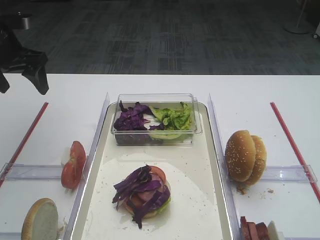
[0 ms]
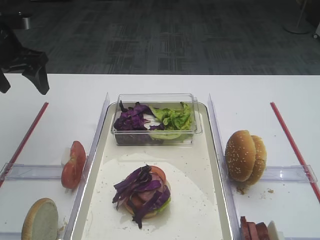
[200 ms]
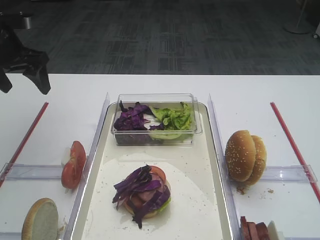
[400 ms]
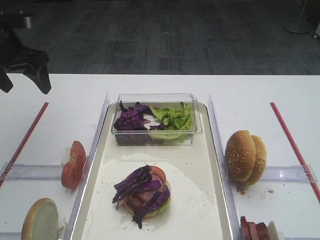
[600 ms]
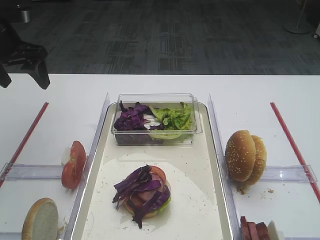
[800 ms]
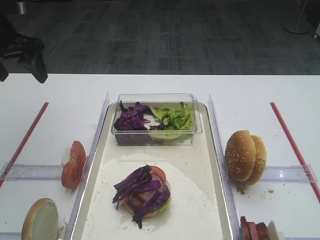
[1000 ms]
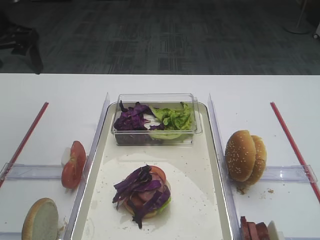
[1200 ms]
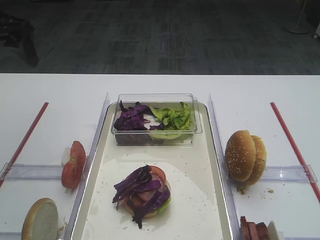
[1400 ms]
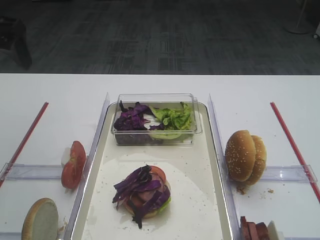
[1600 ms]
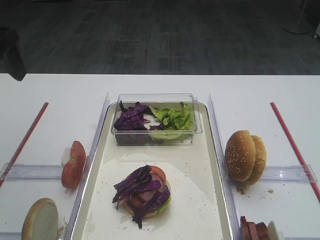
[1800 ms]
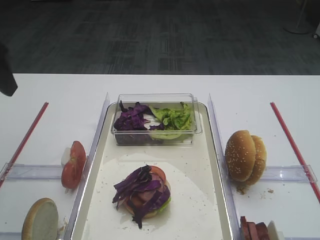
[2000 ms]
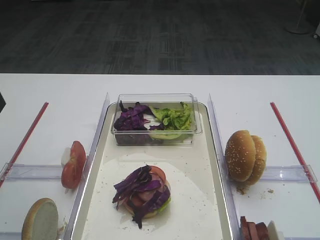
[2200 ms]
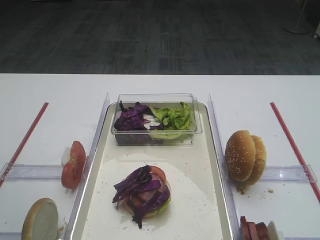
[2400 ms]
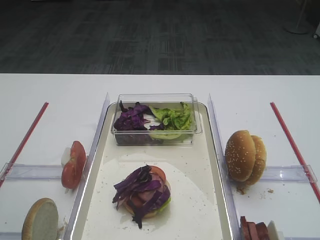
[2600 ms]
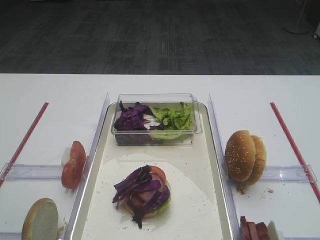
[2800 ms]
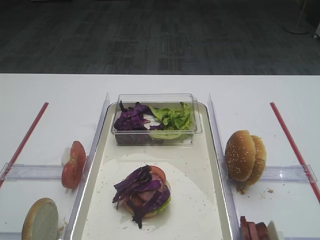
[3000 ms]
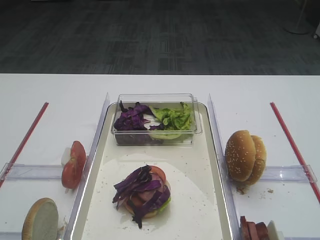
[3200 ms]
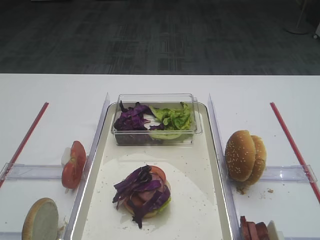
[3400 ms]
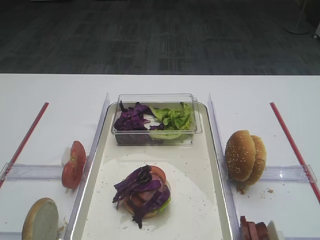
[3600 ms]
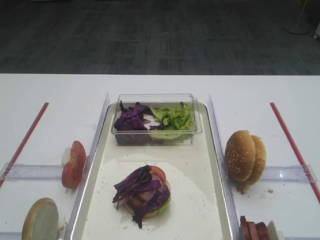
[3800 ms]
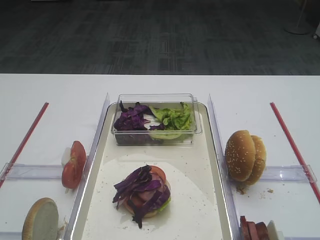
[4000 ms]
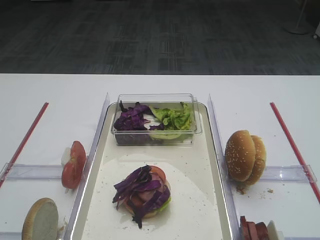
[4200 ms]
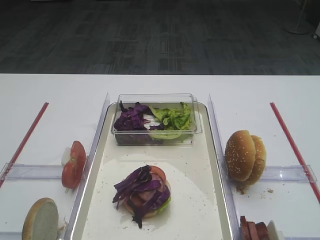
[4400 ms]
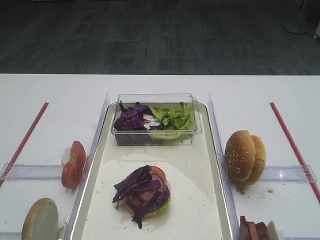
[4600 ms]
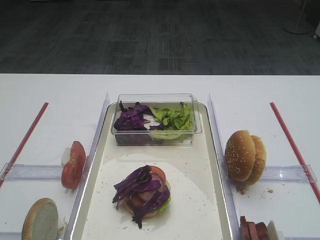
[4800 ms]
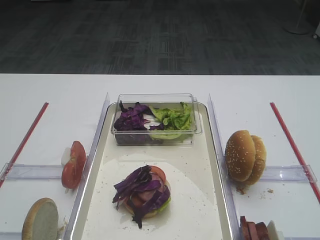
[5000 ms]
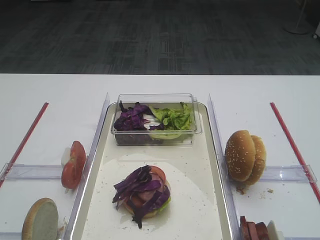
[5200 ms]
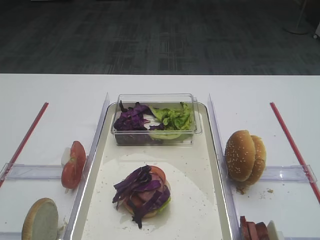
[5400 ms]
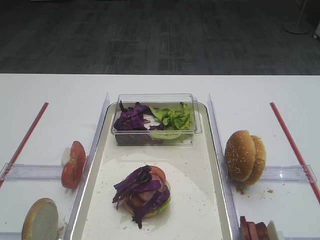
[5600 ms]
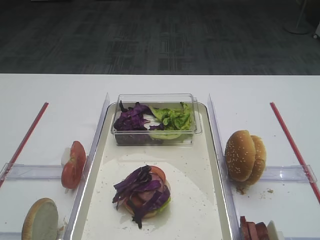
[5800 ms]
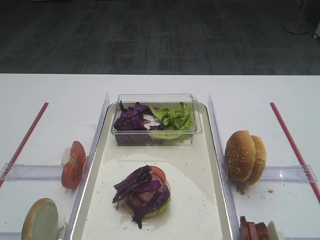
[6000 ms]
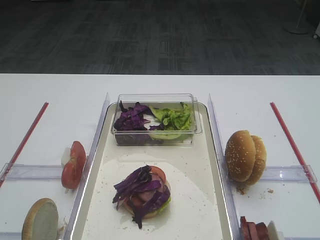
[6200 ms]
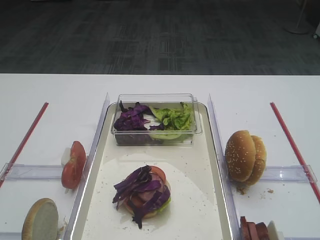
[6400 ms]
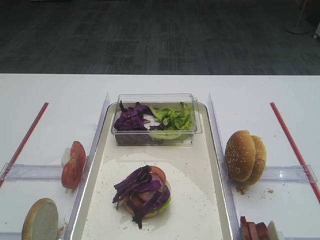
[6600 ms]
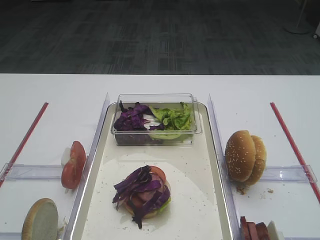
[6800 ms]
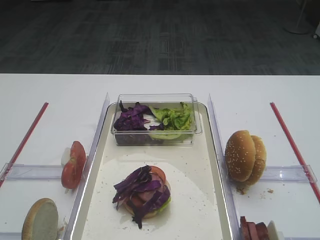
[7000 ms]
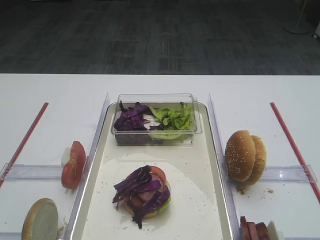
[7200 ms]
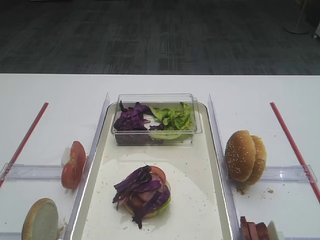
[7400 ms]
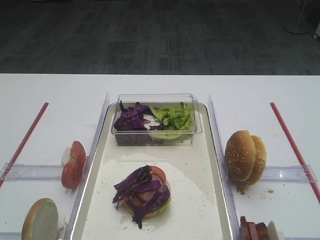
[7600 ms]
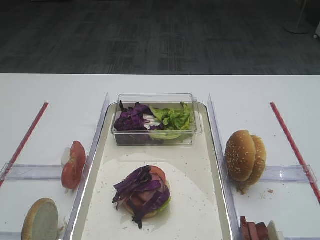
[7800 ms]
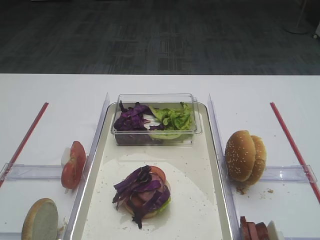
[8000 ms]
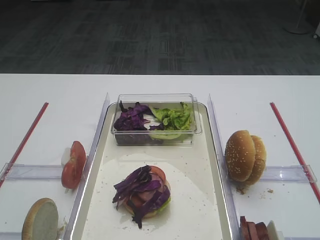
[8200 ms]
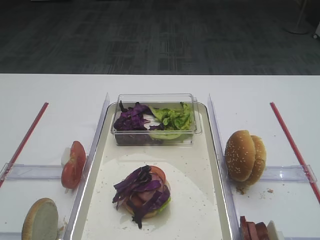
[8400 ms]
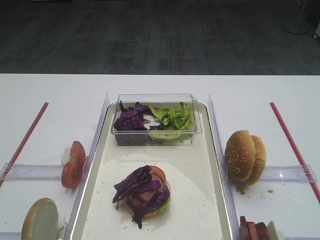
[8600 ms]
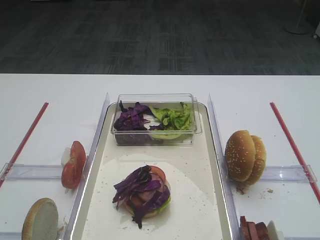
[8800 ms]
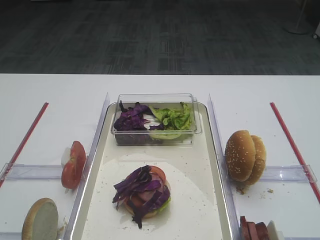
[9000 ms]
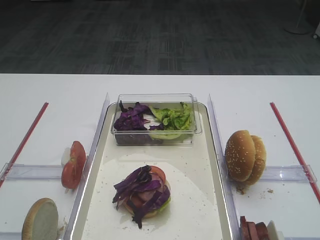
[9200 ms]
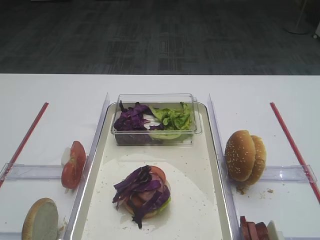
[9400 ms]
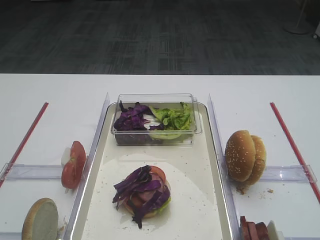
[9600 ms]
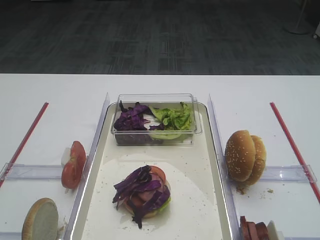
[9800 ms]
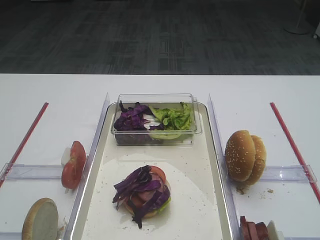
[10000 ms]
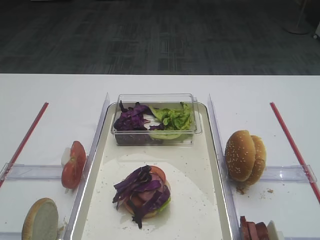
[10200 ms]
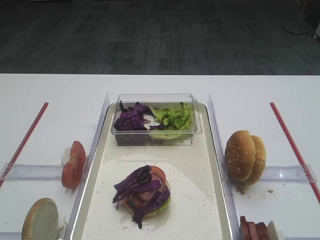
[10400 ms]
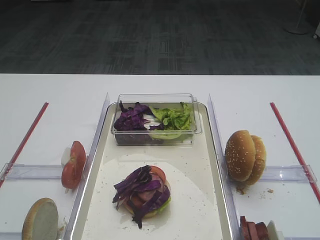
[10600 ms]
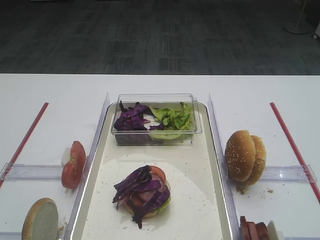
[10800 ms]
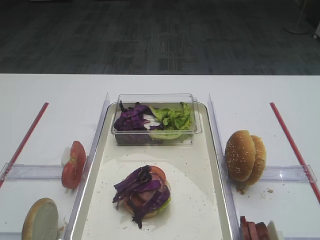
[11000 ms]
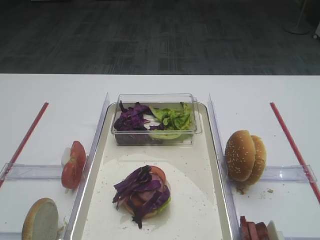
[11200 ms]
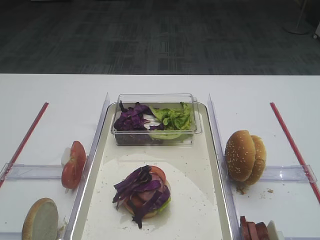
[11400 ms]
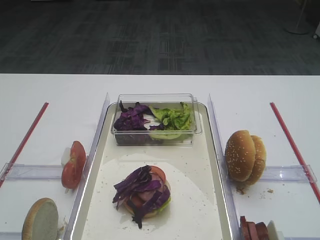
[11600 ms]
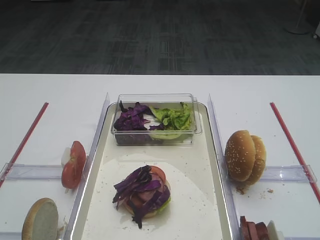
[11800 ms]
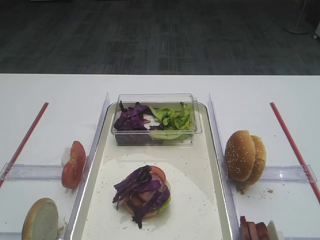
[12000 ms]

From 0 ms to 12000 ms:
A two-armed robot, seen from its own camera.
From 0 ms to 1600 ms: The left gripper heads upward and backward, covering some 10 cm.
From 4400 ms to 12000 ms: Both grippers stay about where they are.

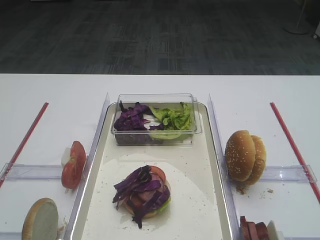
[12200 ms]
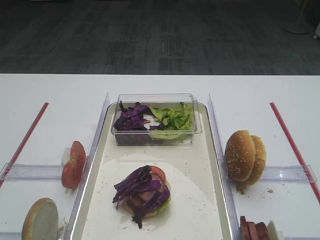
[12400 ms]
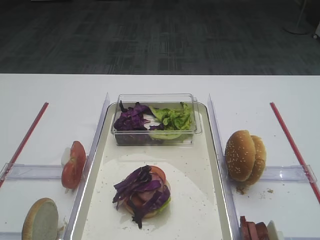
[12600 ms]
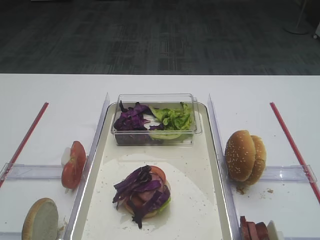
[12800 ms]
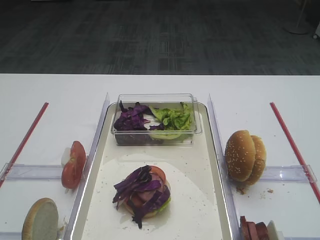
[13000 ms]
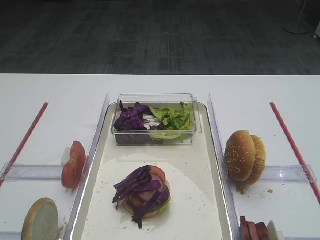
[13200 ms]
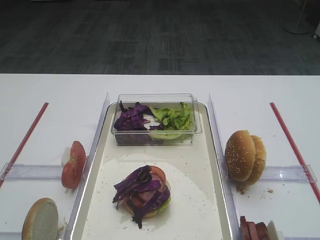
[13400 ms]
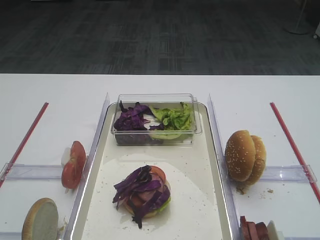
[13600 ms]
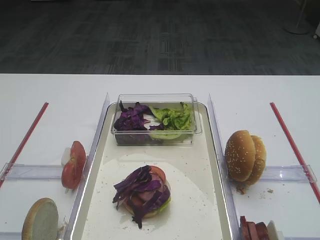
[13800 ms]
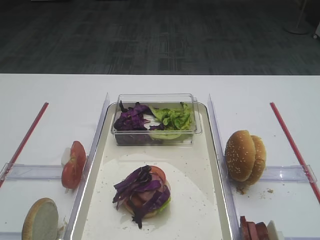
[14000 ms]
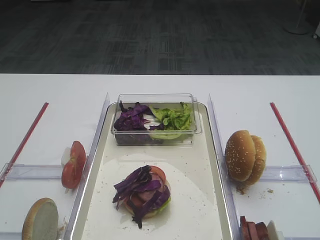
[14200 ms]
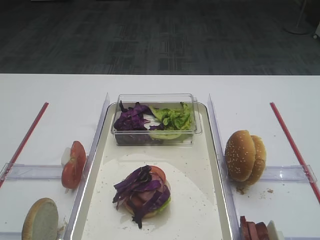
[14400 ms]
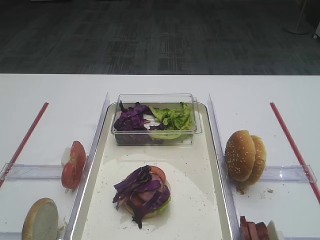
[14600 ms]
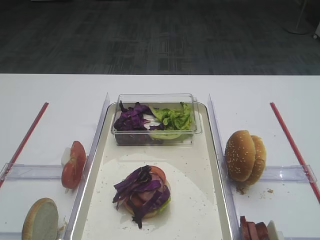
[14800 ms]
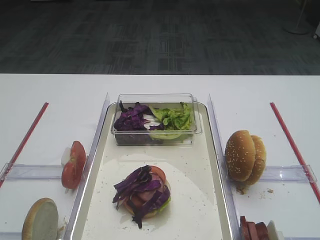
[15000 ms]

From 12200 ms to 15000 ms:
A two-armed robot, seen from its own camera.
From 12200 ms to 15000 ms: Both grippers stay put.

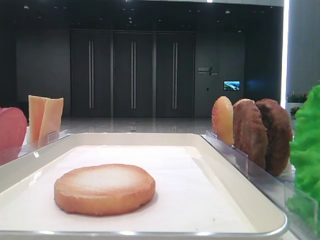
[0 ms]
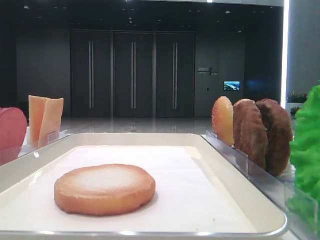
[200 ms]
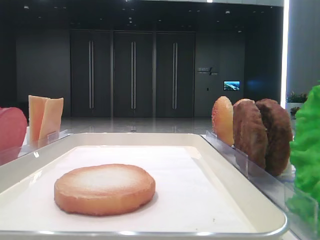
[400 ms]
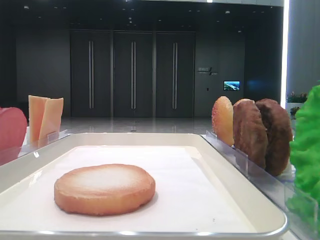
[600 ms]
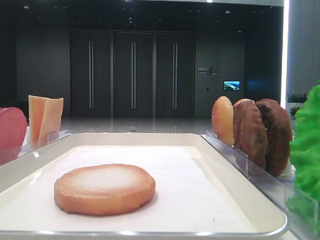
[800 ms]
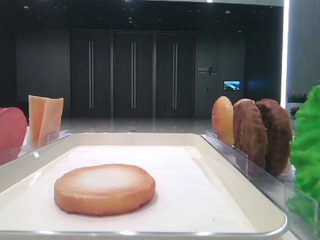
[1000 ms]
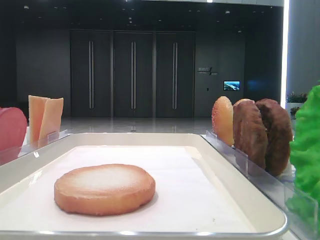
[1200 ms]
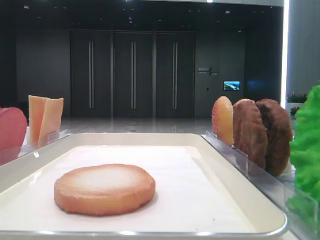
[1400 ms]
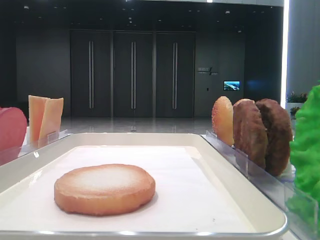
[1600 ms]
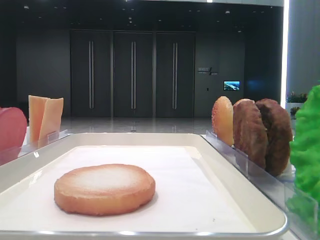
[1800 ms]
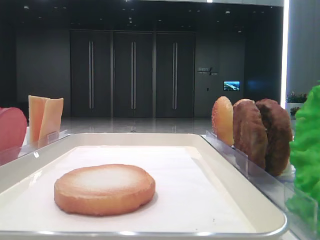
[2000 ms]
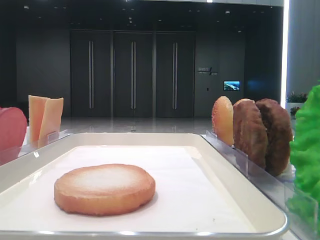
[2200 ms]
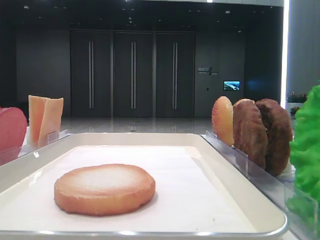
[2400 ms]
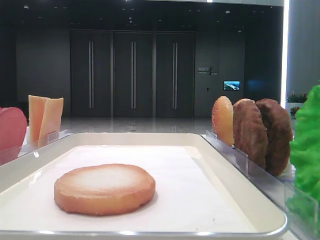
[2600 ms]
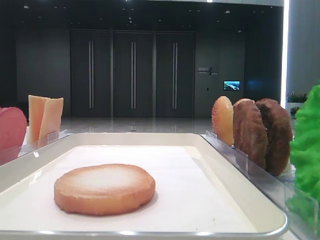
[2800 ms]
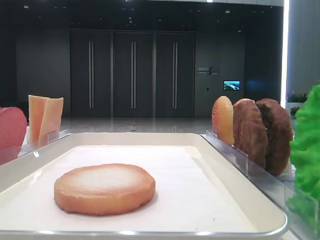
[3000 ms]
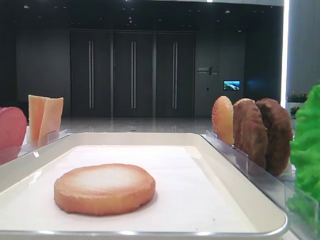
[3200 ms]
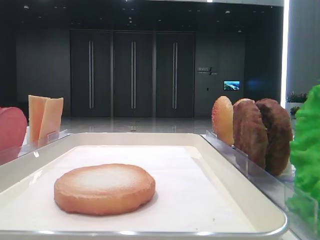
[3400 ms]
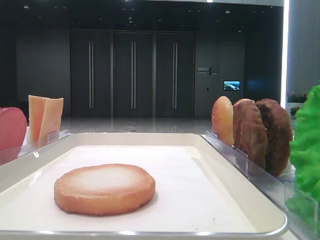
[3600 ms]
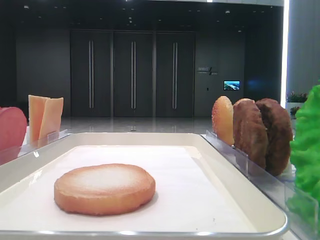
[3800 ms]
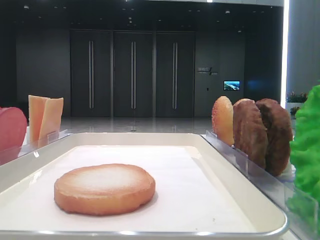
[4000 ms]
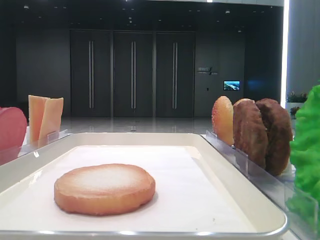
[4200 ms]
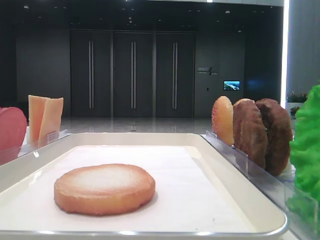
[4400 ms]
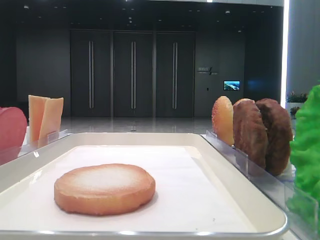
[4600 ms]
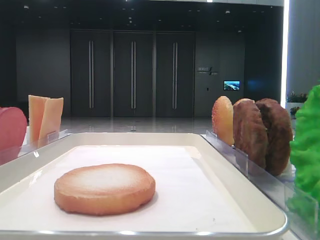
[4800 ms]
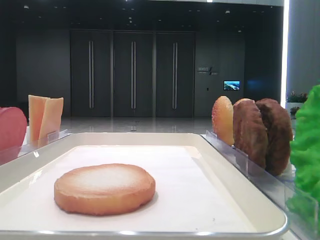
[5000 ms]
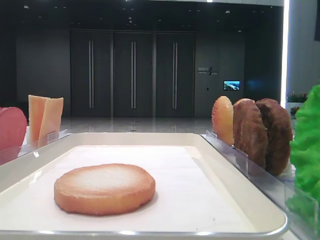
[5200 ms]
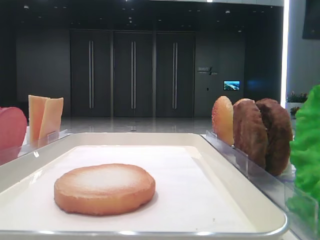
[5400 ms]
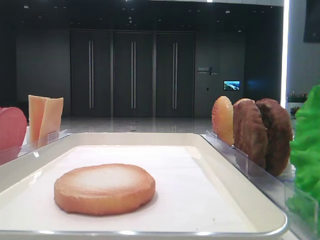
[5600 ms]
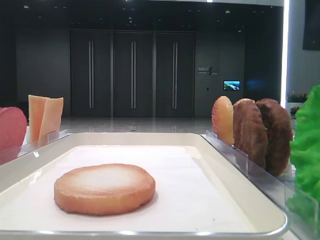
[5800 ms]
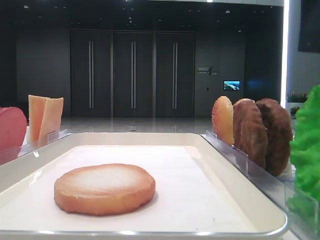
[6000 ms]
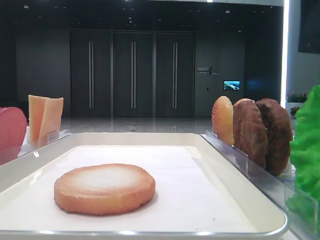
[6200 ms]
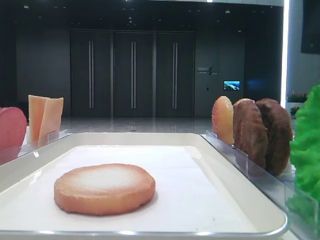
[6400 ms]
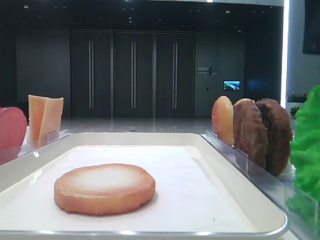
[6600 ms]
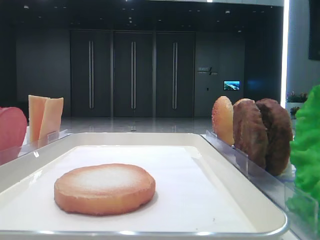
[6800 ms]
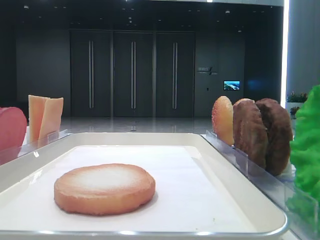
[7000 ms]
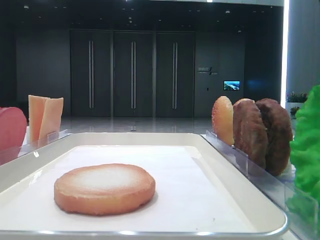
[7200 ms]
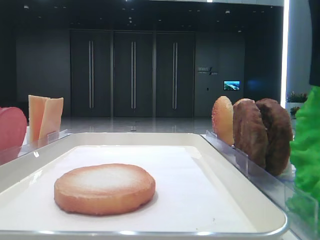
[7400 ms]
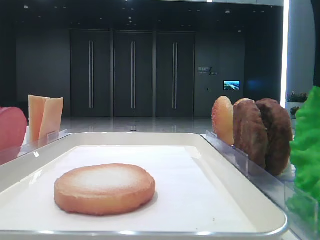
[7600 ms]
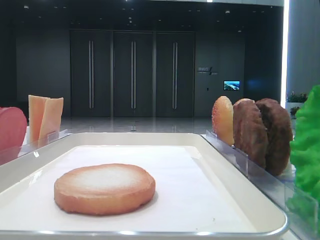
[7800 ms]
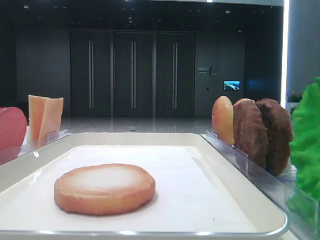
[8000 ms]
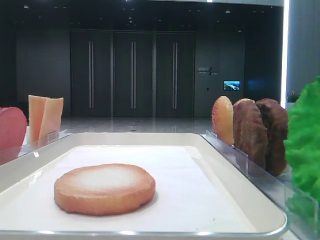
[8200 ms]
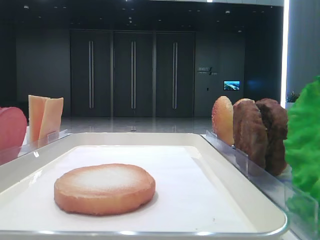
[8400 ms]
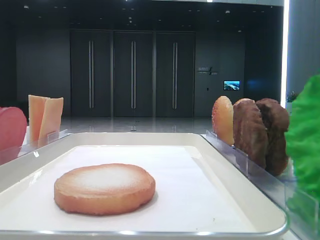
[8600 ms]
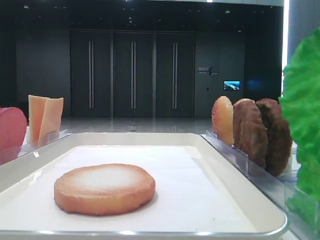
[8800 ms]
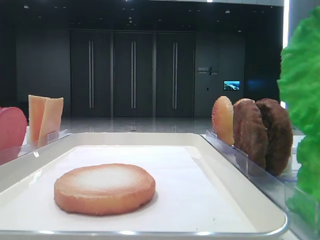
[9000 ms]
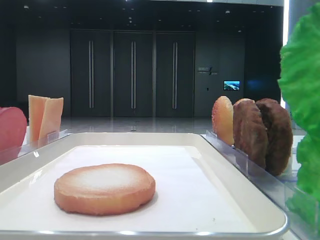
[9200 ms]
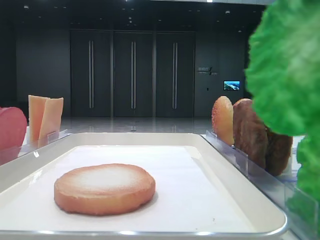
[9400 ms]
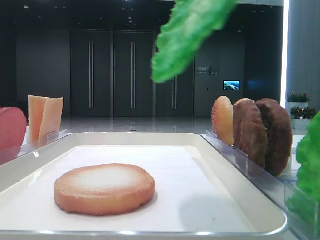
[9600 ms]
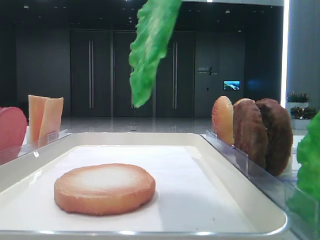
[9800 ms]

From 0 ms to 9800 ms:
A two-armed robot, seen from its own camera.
Step, from 0 ms to 8000 ms: Grab the lettuce leaf with the right hand.
From 4200 ms to 5600 ms: The right gripper goes about 5 cm forward and to the left.
From 7000 ms to 8400 ms: The right gripper closes up.
From 8400 ms to 9800 ms: The right gripper is displaced to the left and upward by about 10 cm.
